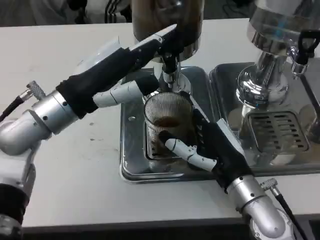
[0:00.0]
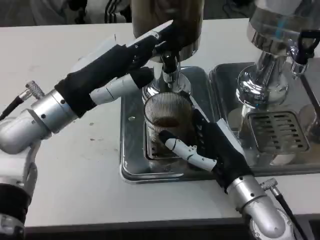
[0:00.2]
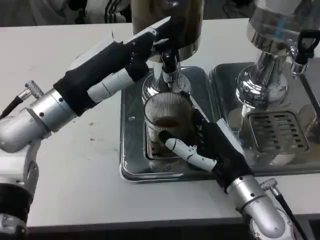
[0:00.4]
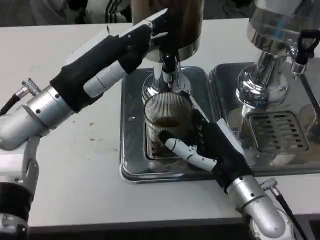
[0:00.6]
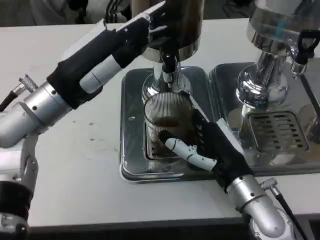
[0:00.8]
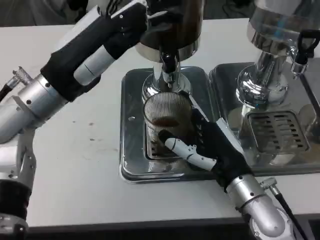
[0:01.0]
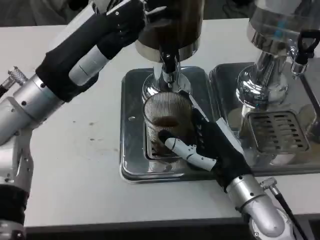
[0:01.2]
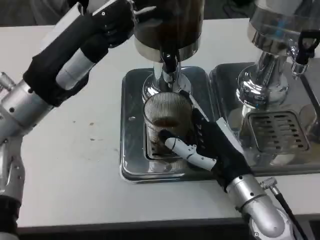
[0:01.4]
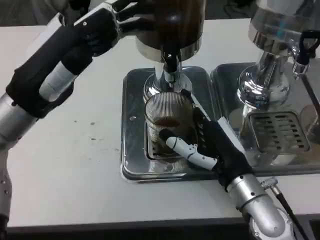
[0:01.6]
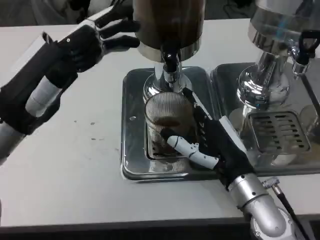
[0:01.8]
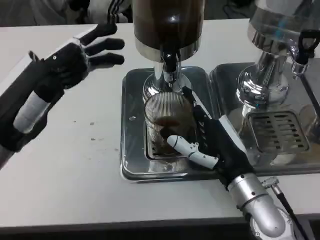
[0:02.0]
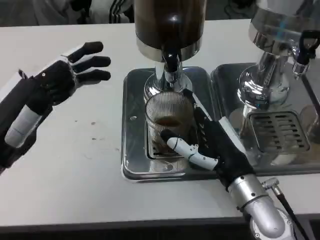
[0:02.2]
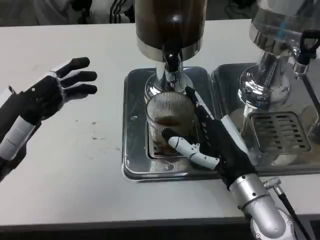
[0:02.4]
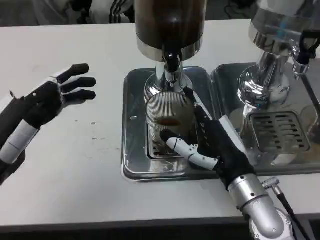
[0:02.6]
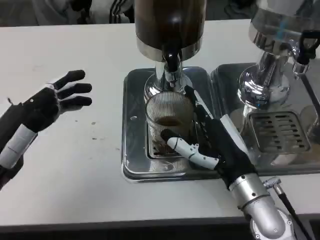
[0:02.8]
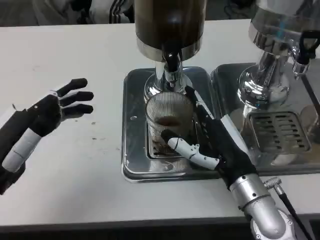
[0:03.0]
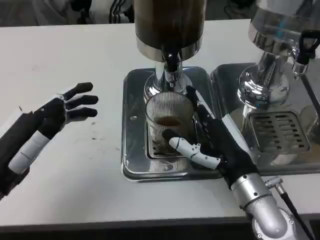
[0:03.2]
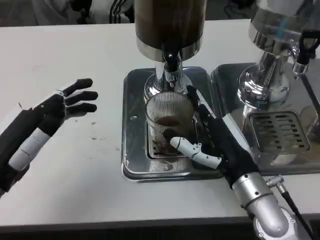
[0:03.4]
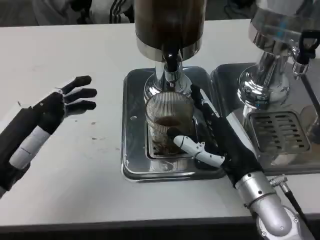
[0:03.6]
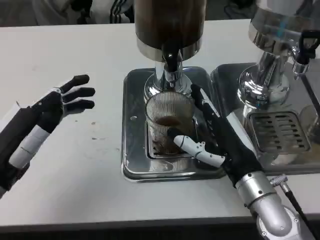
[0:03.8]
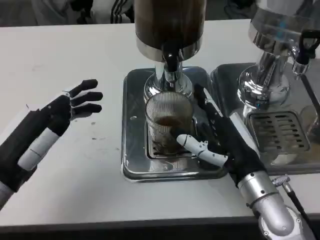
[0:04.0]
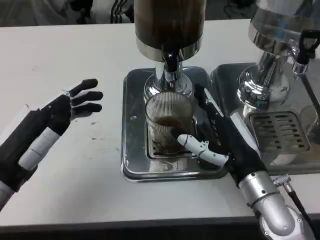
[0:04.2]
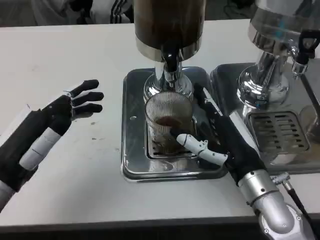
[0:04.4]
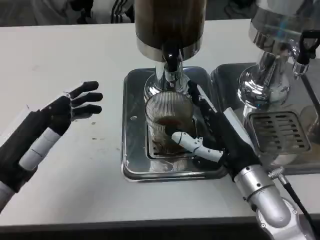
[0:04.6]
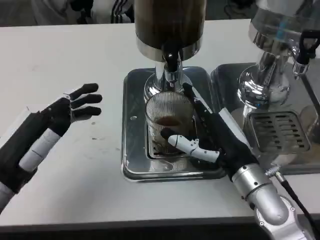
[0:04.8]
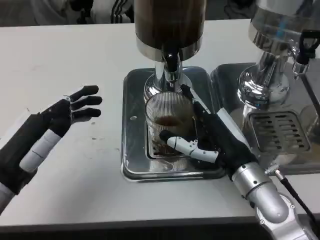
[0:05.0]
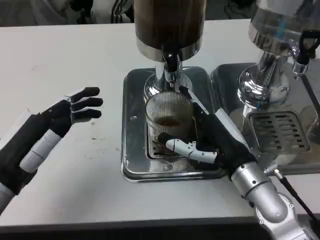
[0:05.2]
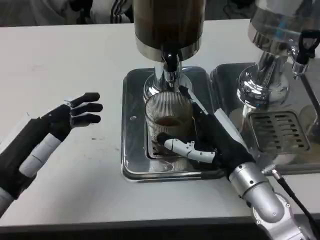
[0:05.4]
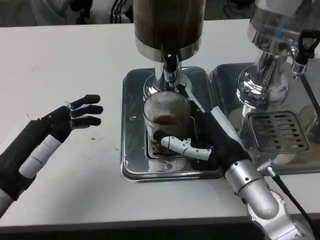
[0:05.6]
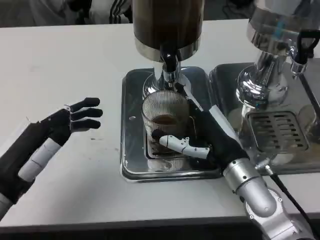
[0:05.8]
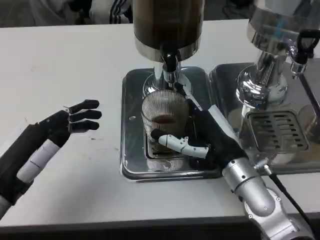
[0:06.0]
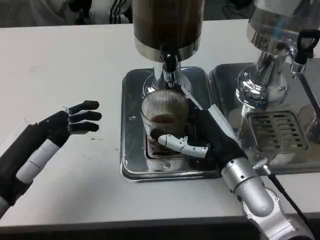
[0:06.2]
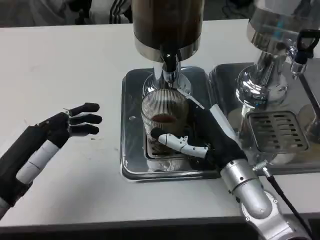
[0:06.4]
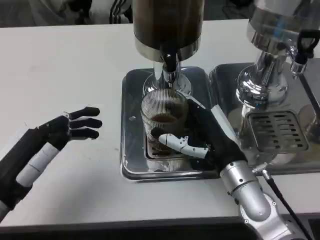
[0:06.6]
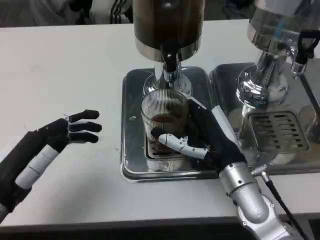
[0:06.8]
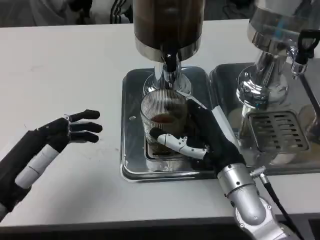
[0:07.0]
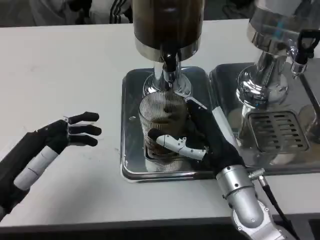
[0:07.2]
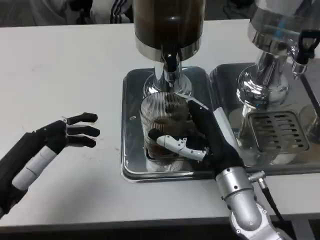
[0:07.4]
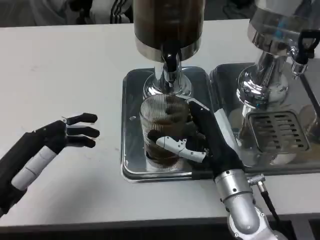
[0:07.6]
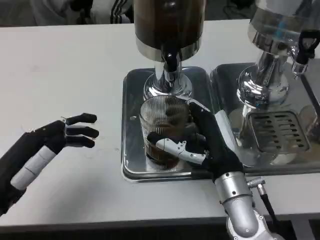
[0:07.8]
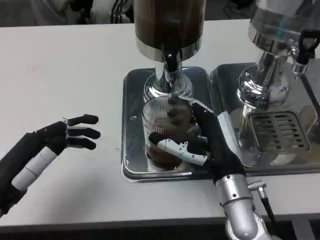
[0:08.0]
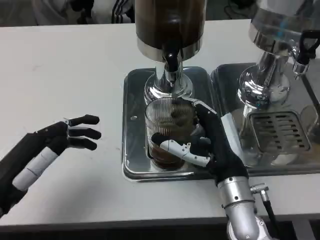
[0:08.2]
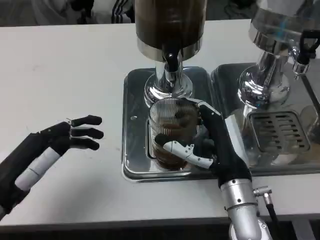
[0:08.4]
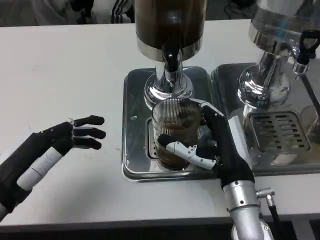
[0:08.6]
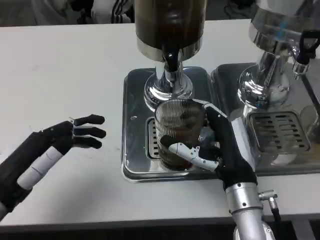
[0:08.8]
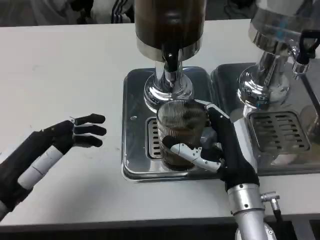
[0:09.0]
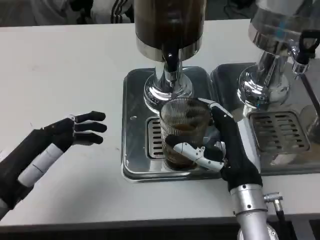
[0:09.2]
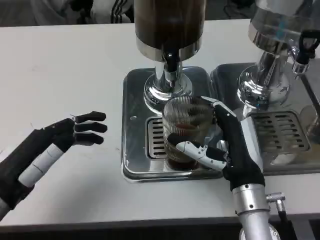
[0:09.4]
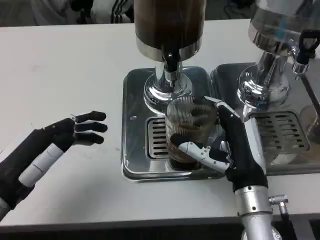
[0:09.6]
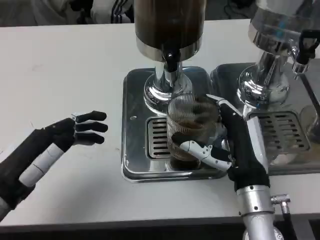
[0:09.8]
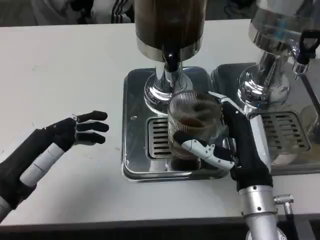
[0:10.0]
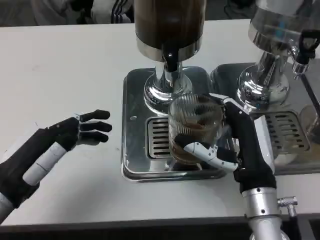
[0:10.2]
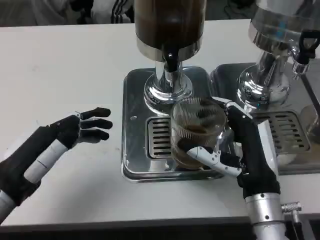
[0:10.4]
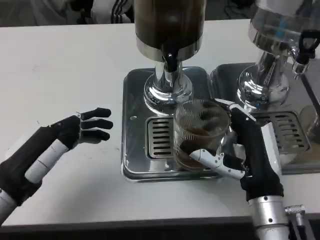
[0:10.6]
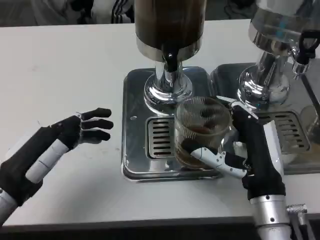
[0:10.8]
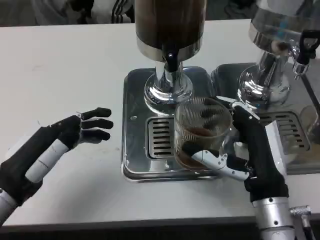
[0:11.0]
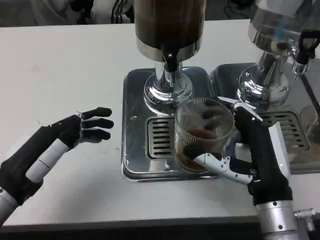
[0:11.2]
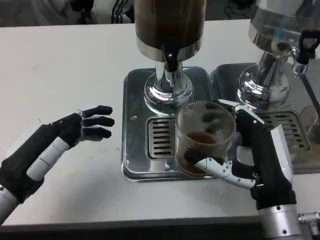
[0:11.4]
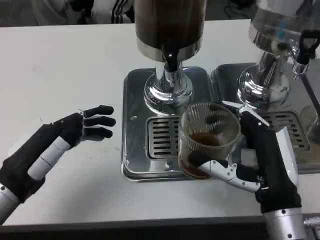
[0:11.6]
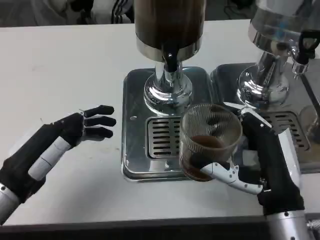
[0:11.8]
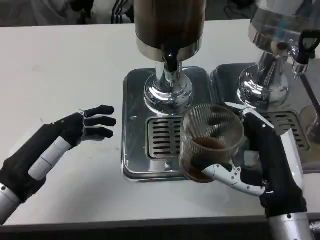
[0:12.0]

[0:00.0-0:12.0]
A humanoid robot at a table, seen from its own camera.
Task of the whole recording: Grasp the cup under the faucet to collect the drink, then remove the cup.
0:01.6 to 0:03.0: The left hand heads backward, downward and to the left, covering some 10 cm.
0:03.0 to 0:09.0: The hands move only a little.
0:09.0 to 0:10.4: The hands stay close to where they were, moving slightly.
0:10.4 to 0:12.0: The right hand ends up roughly 5 cm from where it was.

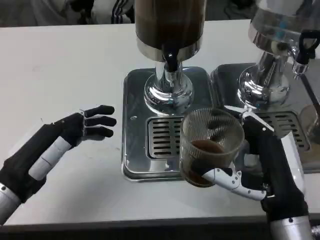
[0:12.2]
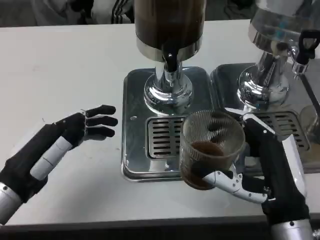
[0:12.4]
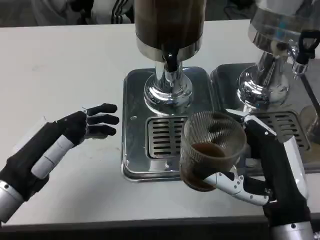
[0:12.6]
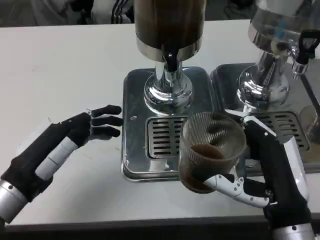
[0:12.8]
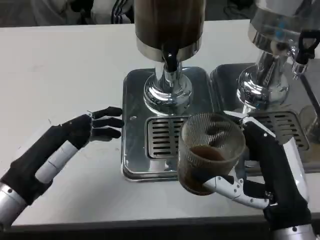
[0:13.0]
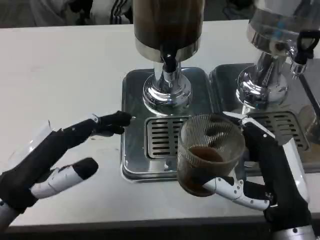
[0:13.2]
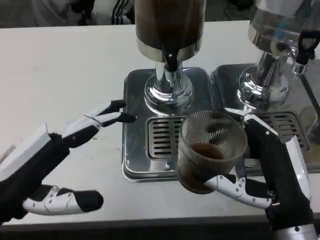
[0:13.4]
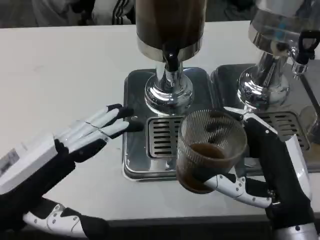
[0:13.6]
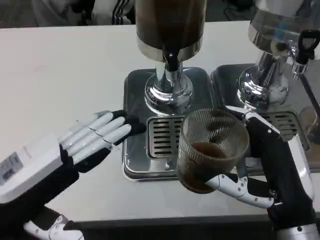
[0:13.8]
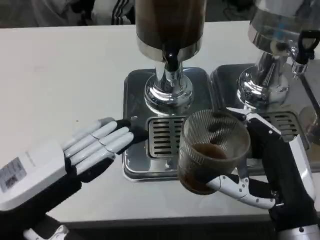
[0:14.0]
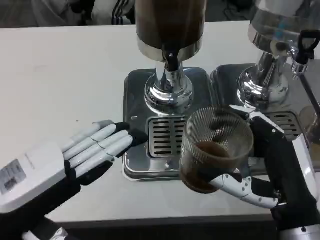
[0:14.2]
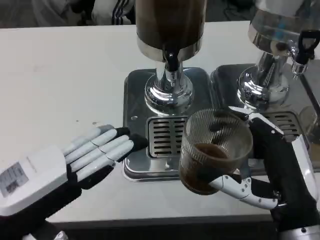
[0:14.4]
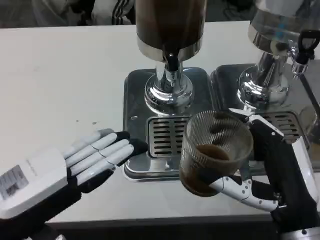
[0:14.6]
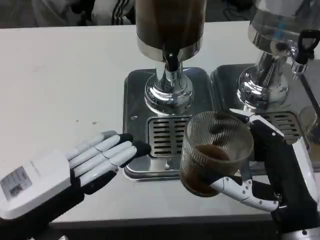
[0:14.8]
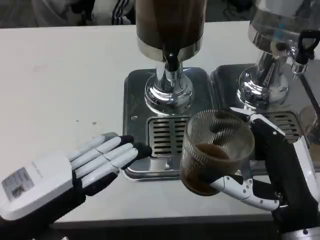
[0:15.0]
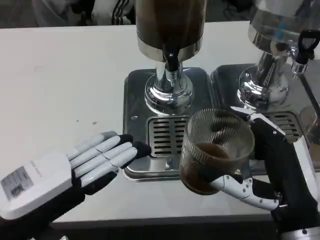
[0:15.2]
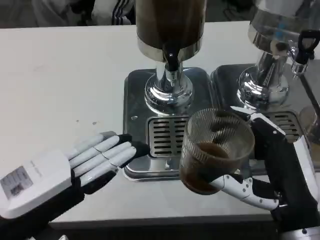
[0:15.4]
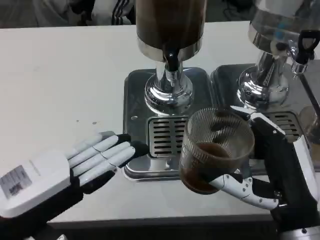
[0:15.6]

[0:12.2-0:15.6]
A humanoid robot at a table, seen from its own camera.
Task of the whole recording: Grasp the cup under the faucet to collect the drink, then remove the cup.
0:12.2 to 0:13.8: The left hand shifts some 5 cm upward.
0:13.8 to 0:15.6: The hands move only a little.

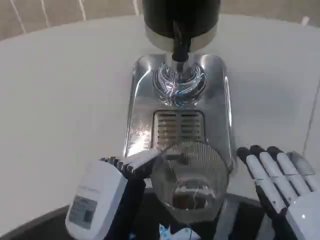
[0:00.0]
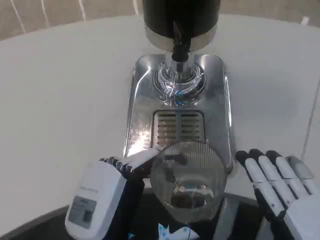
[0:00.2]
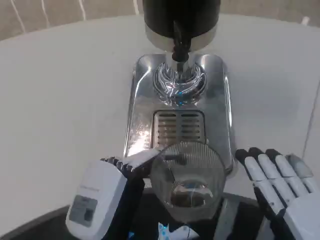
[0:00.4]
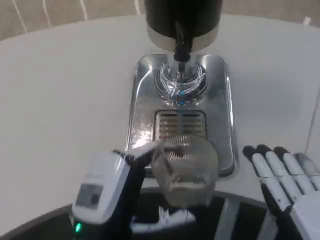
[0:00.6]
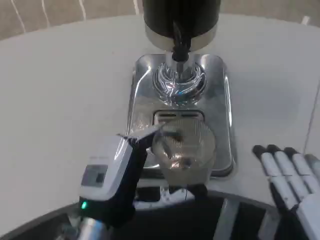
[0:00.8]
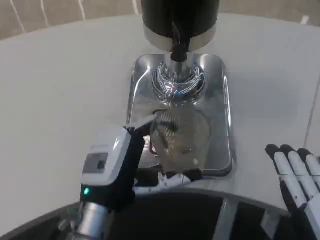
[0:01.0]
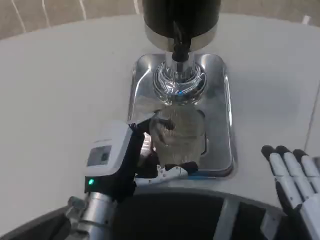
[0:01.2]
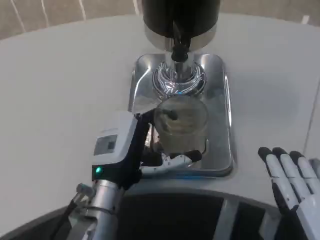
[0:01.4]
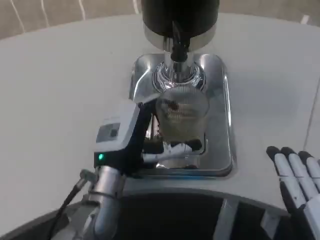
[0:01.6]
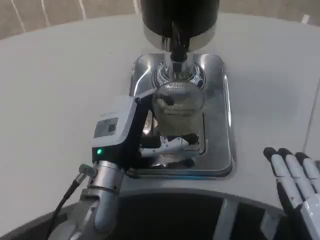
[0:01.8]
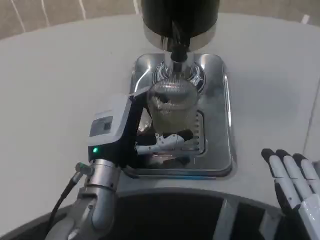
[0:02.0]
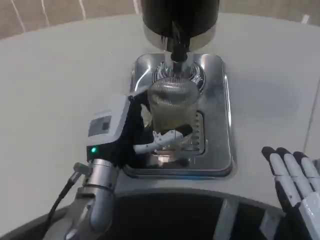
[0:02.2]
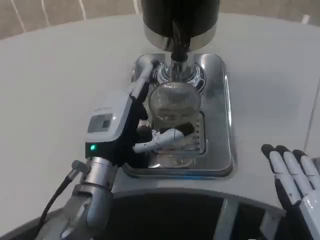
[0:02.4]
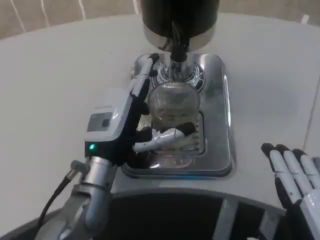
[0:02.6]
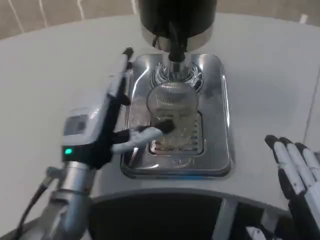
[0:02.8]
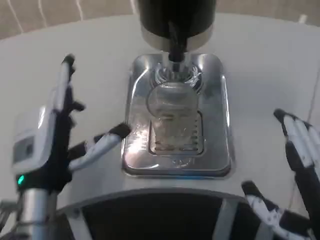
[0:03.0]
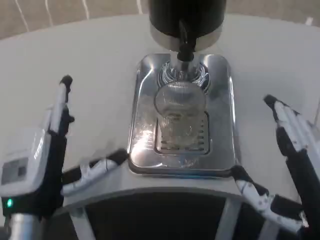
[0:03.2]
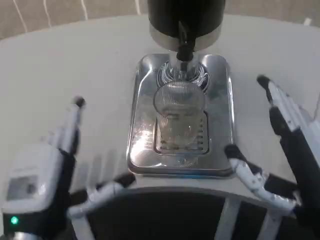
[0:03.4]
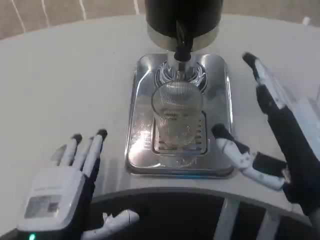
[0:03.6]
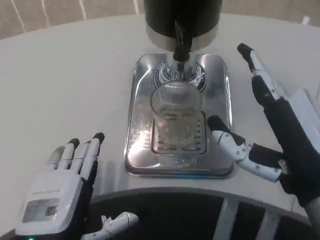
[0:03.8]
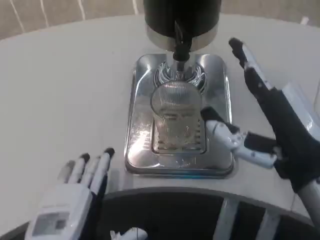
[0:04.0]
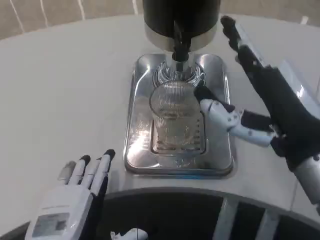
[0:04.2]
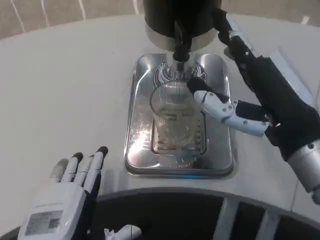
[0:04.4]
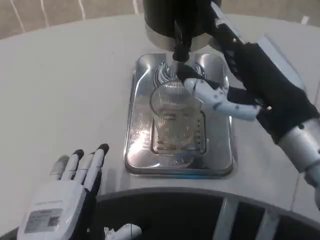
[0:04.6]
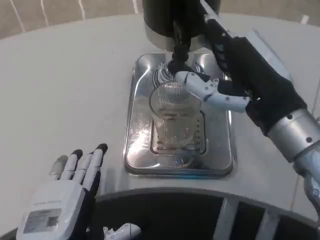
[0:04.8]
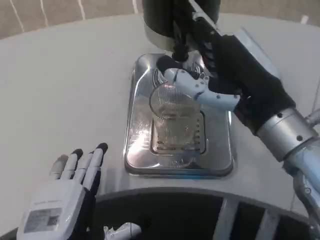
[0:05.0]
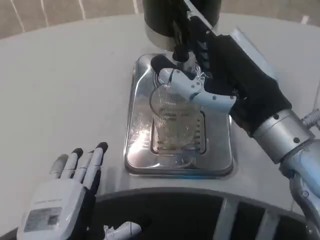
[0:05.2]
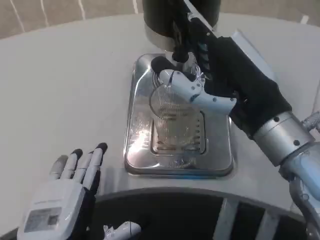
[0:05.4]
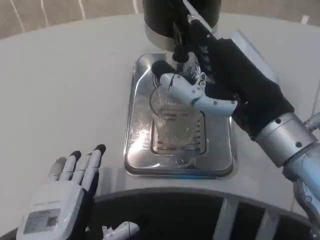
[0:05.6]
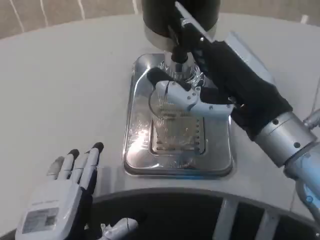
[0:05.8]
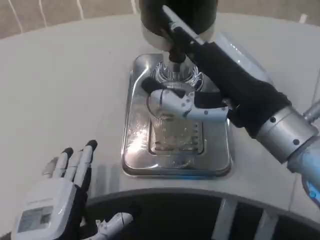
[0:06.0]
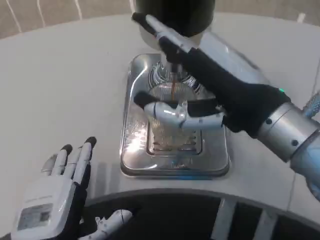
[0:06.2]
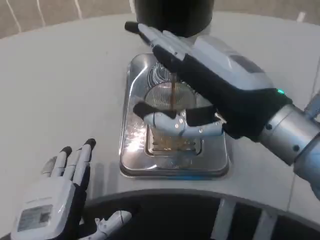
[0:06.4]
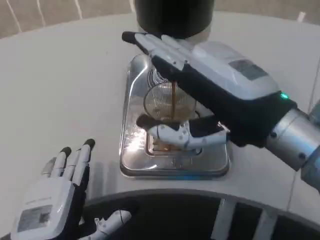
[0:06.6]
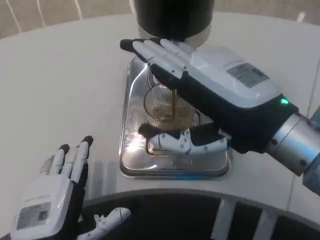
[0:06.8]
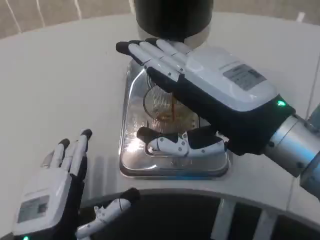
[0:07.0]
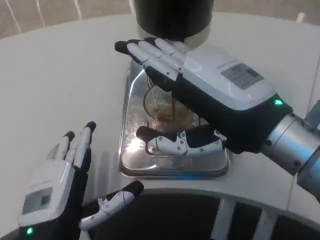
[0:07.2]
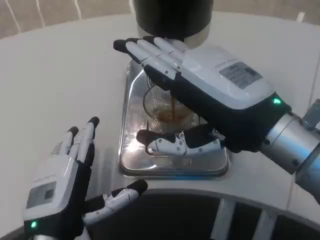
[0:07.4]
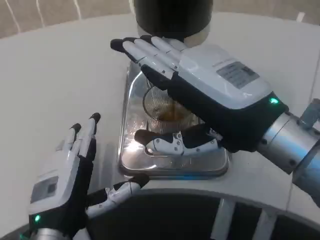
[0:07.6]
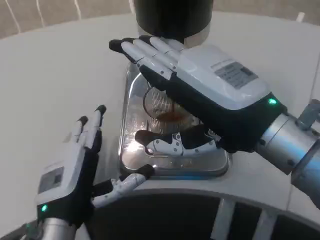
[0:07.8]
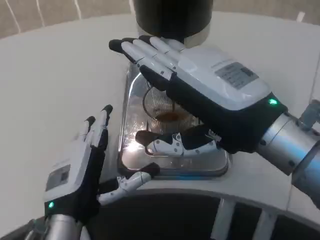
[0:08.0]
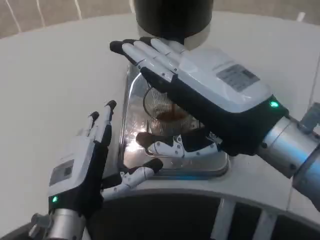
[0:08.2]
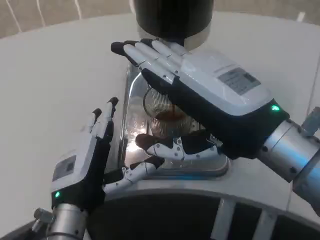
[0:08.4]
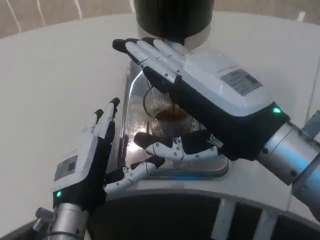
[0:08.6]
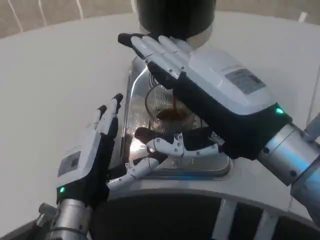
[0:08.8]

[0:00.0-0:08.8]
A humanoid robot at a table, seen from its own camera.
Task of the whole recording: Grasp the cup under the faucet to collect the drink, then remove the cup.
0:00.0 to 0:01.4: The left hand goes approximately 10 cm forward.
0:01.4 to 0:03.0: The left hand moves to the left, about 5 cm.
0:03.0 to 0:04.4: The left hand goes roughly 10 cm backward. Meanwhile the right hand shifts approximately 10 cm forward and upward.
0:07.4 to 0:08.8: The left hand moves forward, some 5 cm.
